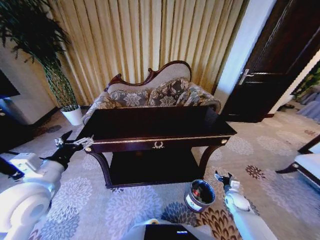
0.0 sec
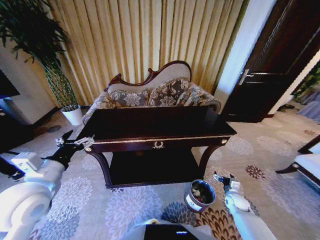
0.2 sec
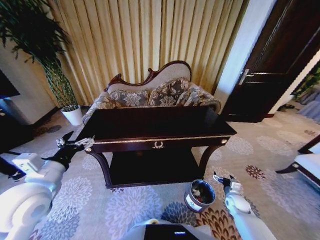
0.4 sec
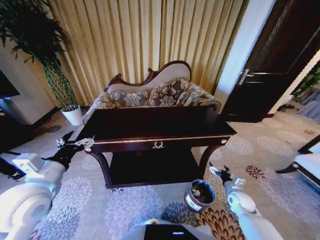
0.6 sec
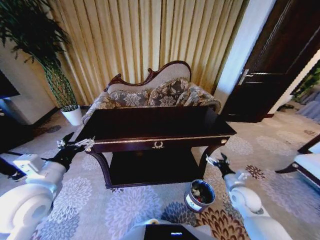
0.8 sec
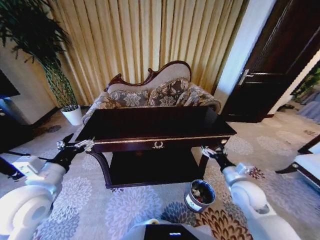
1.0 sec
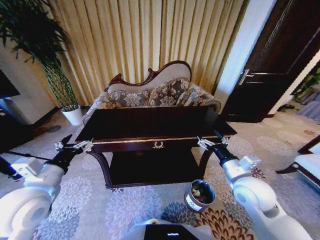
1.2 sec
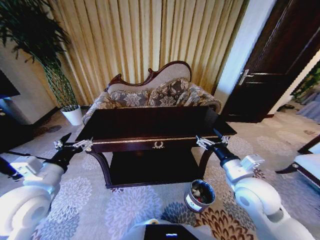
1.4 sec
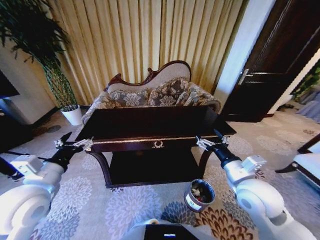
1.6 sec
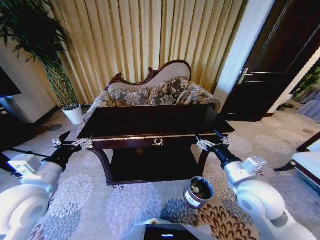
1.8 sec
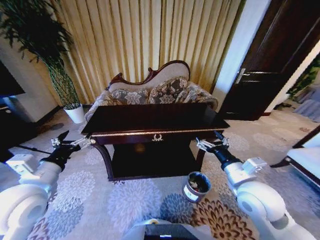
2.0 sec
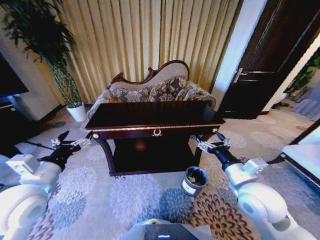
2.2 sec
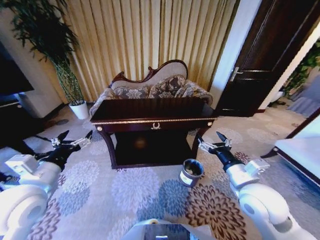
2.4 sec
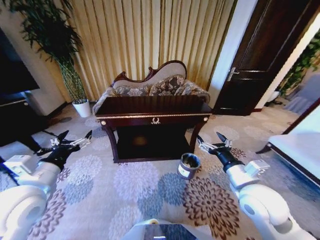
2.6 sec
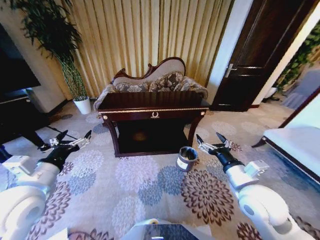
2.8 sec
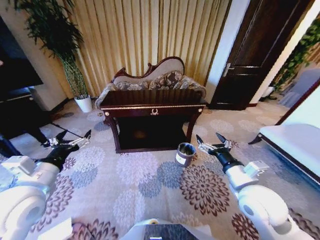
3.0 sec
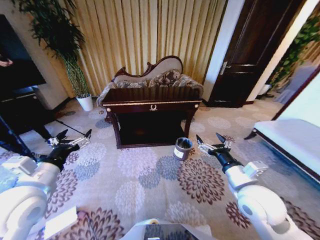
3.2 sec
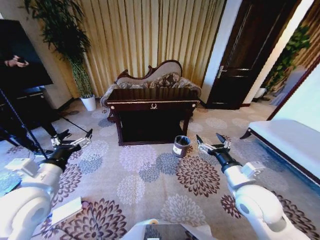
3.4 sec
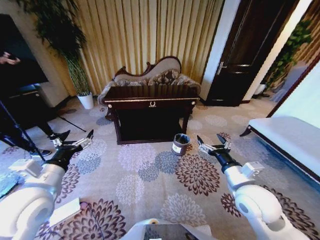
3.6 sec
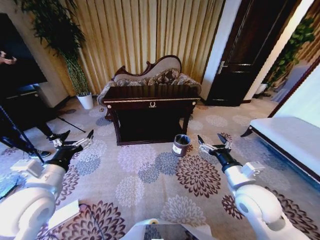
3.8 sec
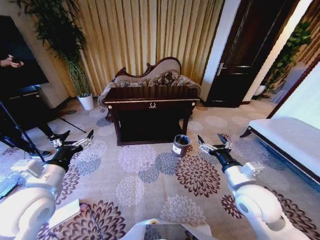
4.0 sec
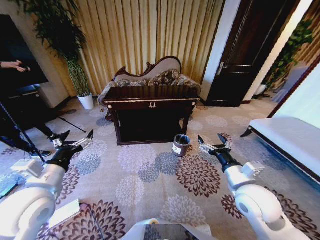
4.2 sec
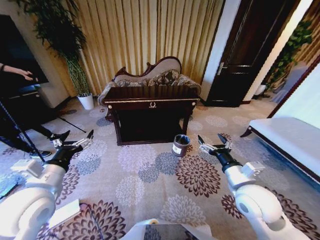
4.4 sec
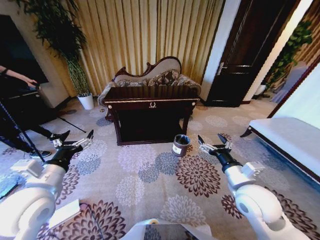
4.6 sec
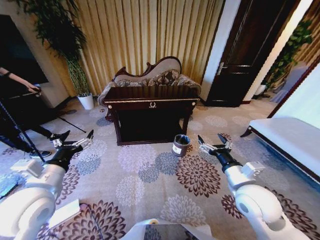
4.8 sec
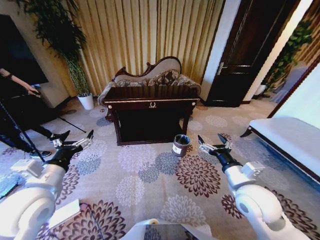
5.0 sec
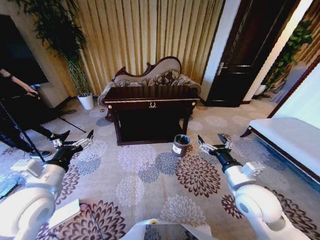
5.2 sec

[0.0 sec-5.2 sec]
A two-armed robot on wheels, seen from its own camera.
Task of the whole recording: Move to the front of the table and place the trash on the table into the trash bin.
0.0 sec to 1.8 sec: The right gripper is displaced upward and to the left by approximately 35 cm.
